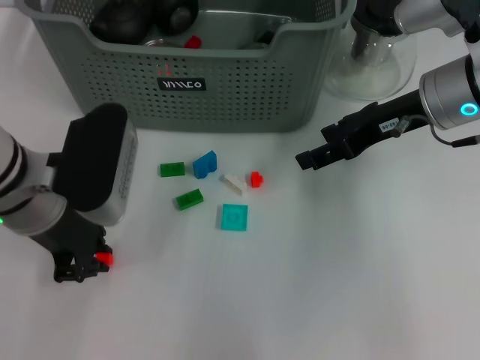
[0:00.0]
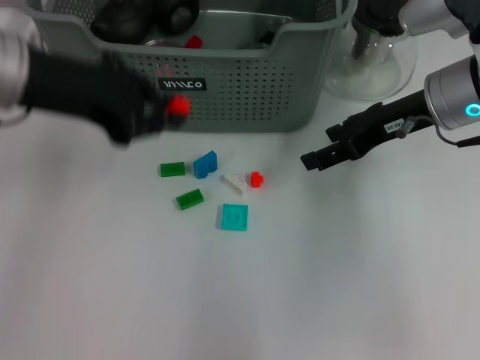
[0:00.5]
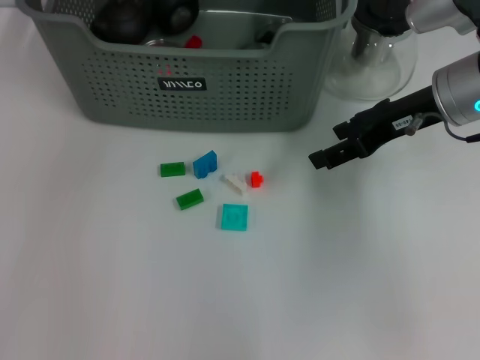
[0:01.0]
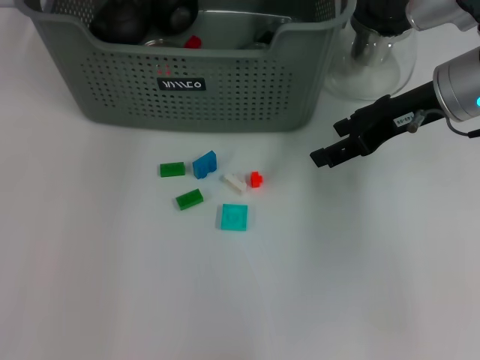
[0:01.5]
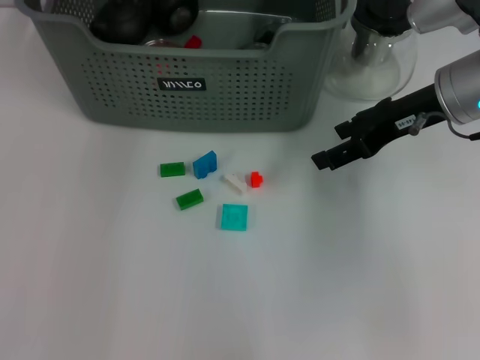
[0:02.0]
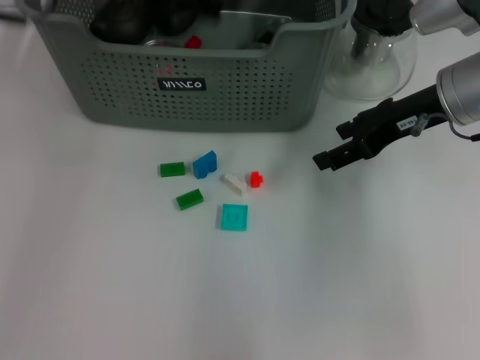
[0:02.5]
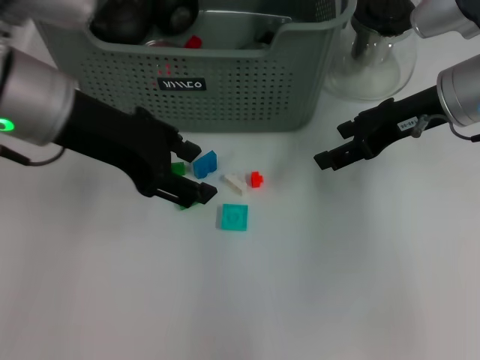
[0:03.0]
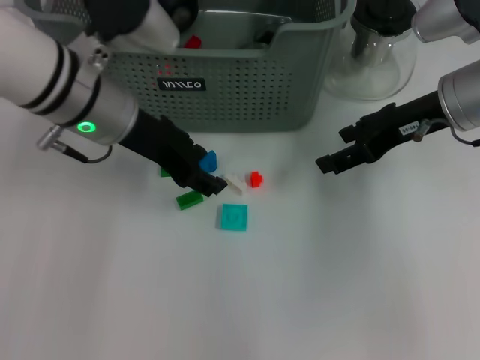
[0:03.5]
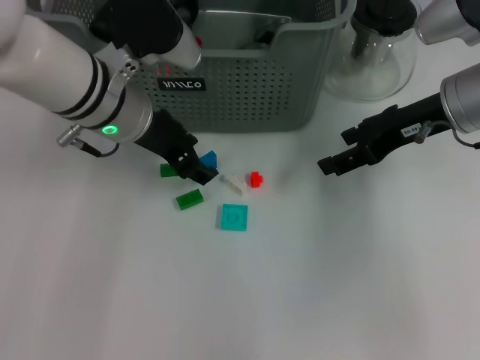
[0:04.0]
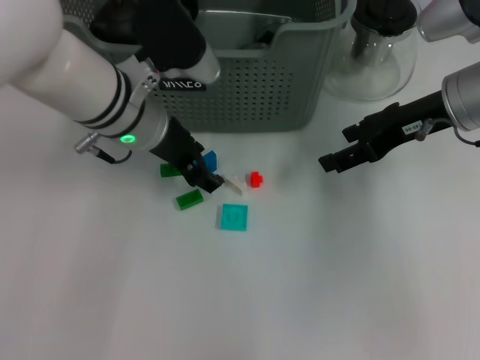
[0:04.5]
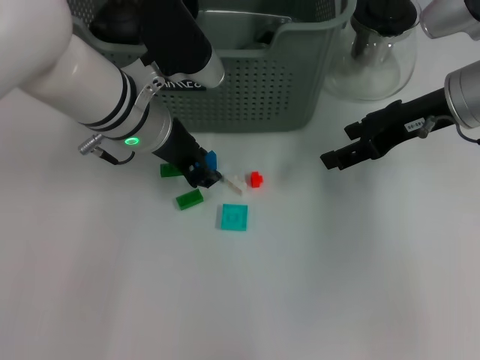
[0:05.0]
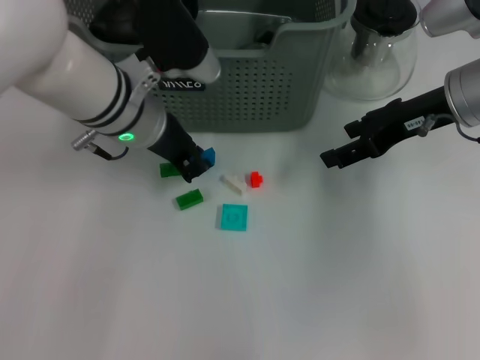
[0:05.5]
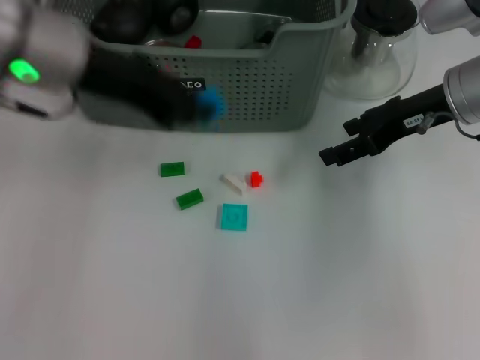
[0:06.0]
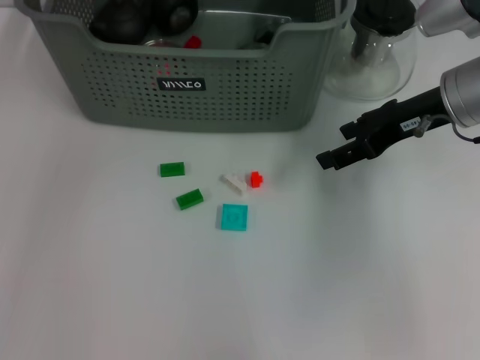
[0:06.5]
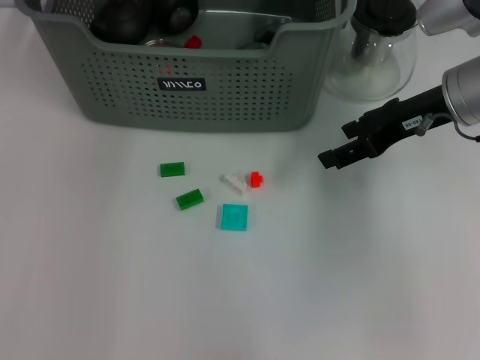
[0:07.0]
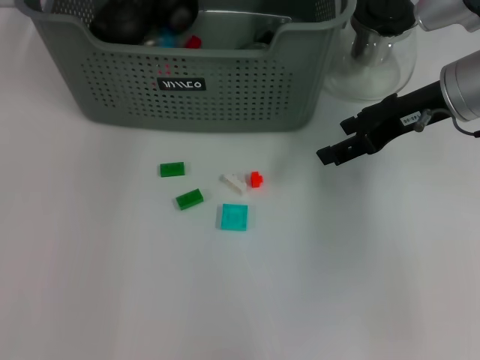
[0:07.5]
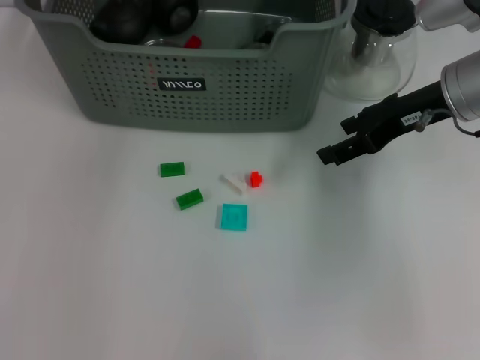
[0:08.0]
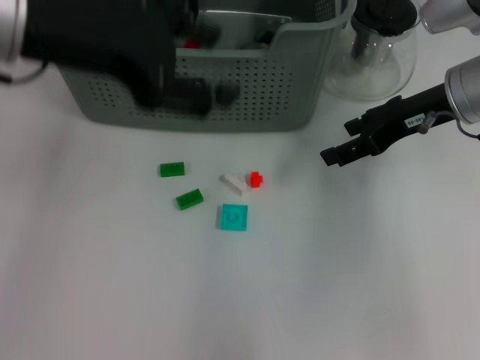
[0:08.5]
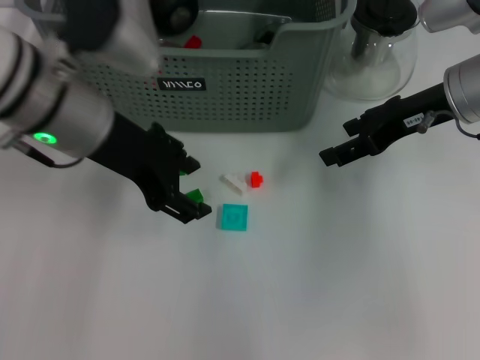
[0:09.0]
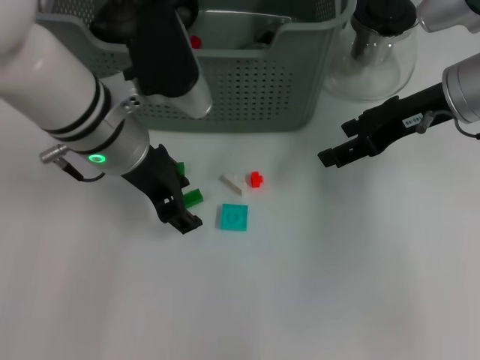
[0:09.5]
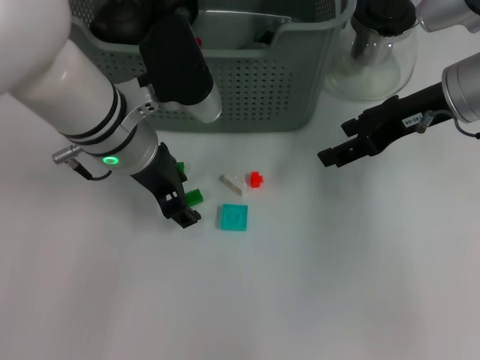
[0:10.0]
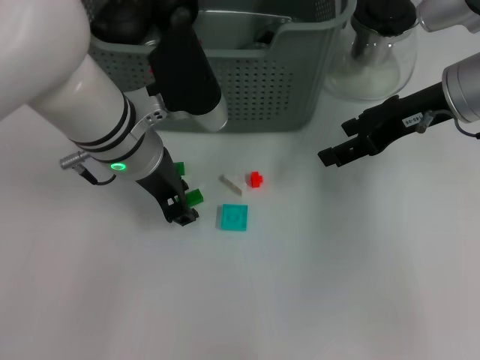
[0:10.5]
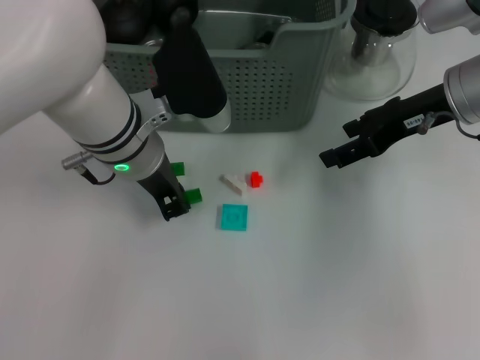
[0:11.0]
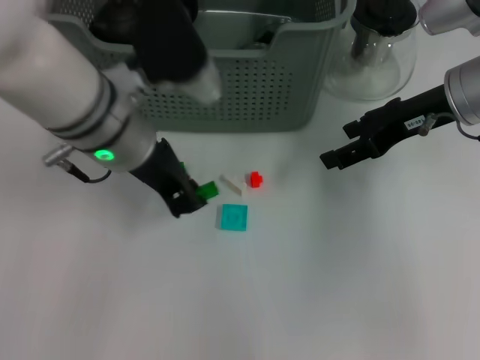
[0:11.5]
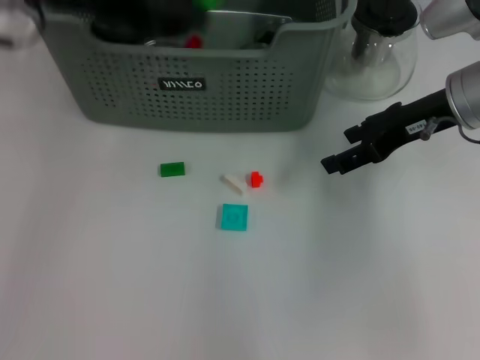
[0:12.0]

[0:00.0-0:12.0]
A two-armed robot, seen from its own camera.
Task of the whole recording: pick up the teacup on the table and place it into the storage bin, pick up the block on the table and place it into the storage bin.
Step, 0:00.0 to 0:01.5: Place the orange block in the storage box with left gripper.
Step, 0:02.0 to 0:05.0: Grasp the dark blue block with left gripper.
Step, 0:05.5 to 0:07.5: Place the dark blue block in the storage box with left gripper.
Step, 0:08.0 to 0:11.0: Grasp the green block with left gripper.
0:00.0 to 0:02.0: The left gripper goes roughly 20 cm forward and upward, and opens its fingers.
0:02.0 to 0:04.0: The left gripper goes some 15 cm downward and backward.
0:04.0 to 0:06.0: The left gripper goes approximately 10 cm upward, and closes up.
0:06.0 to 0:08.0: The left gripper moves forward and upward, approximately 10 cm, and opens up.
0:08.0 to 0:10.0: The left gripper travels downward, backward and to the right by approximately 20 cm.
0:10.0 to 0:12.0: The left gripper heads upward and to the left, covering roughly 15 cm, and closes.

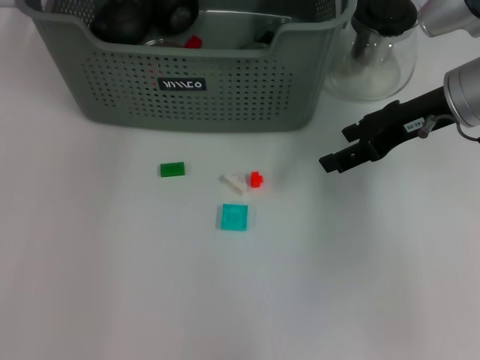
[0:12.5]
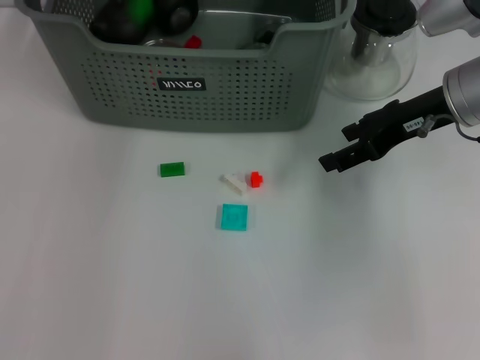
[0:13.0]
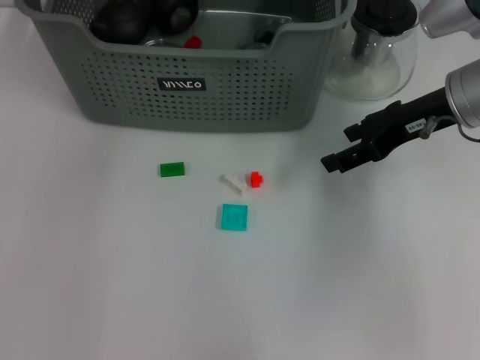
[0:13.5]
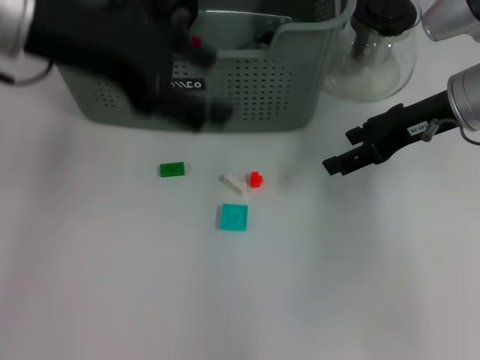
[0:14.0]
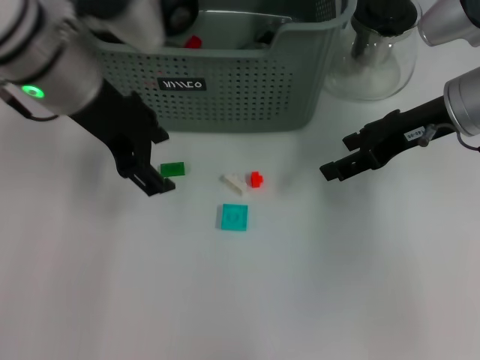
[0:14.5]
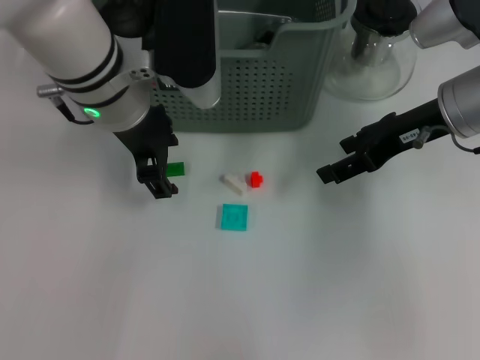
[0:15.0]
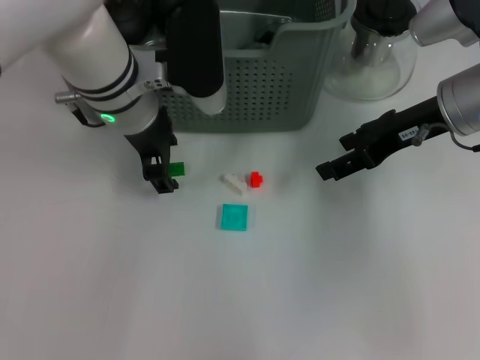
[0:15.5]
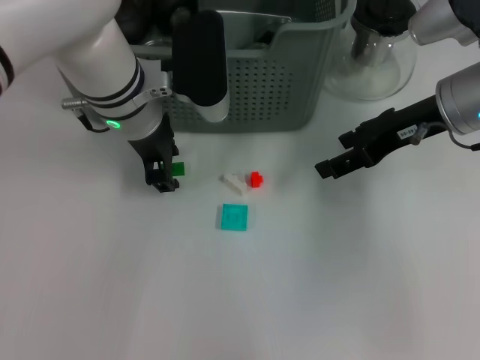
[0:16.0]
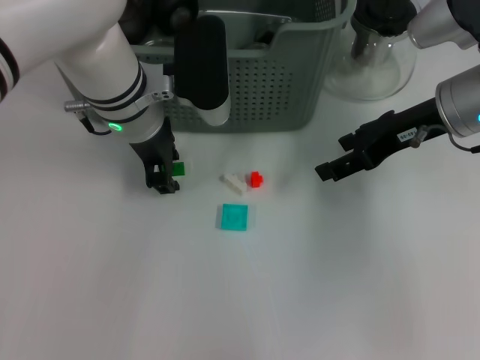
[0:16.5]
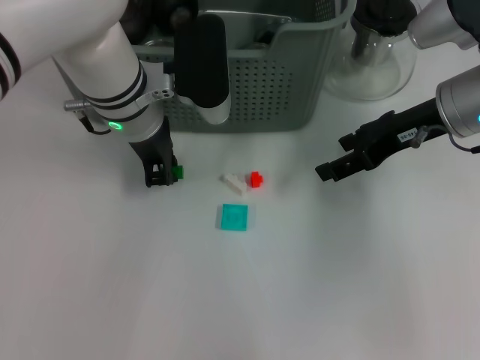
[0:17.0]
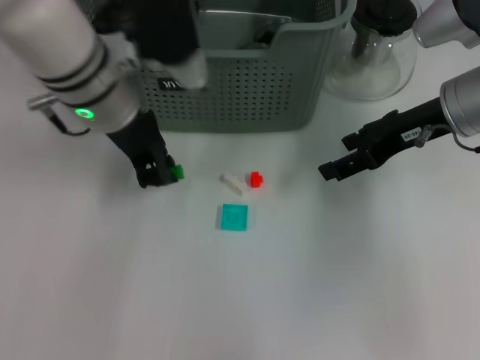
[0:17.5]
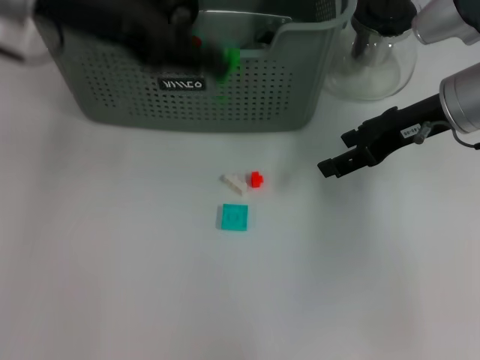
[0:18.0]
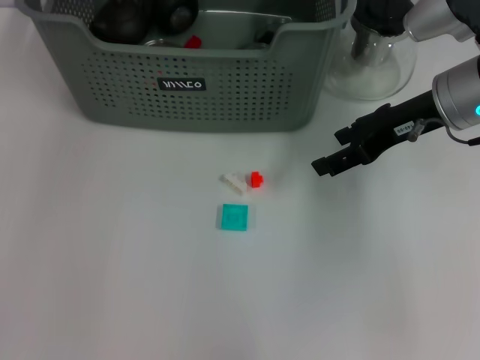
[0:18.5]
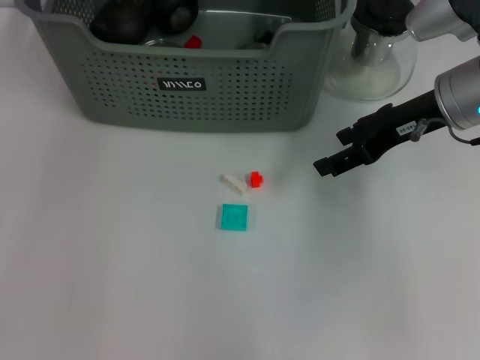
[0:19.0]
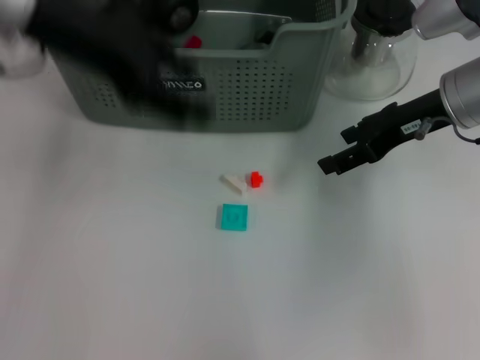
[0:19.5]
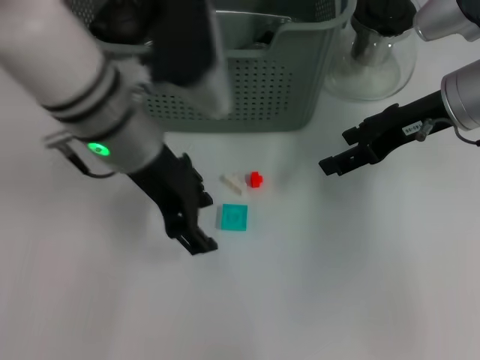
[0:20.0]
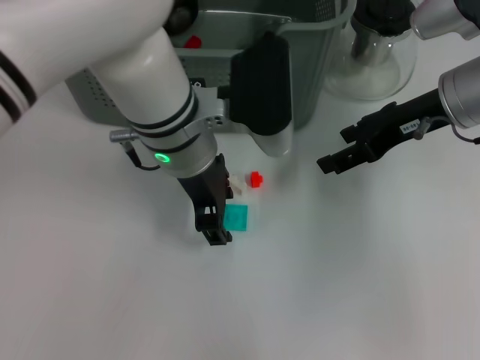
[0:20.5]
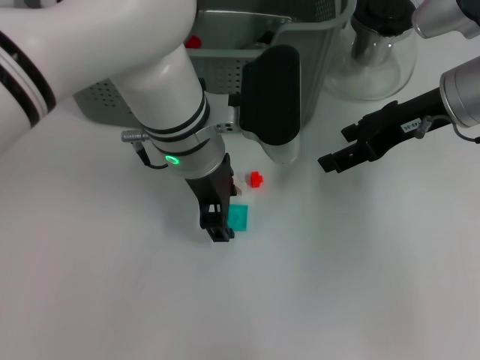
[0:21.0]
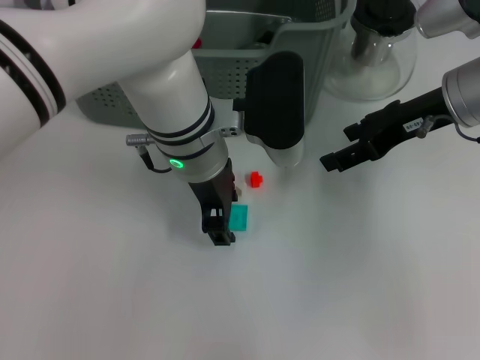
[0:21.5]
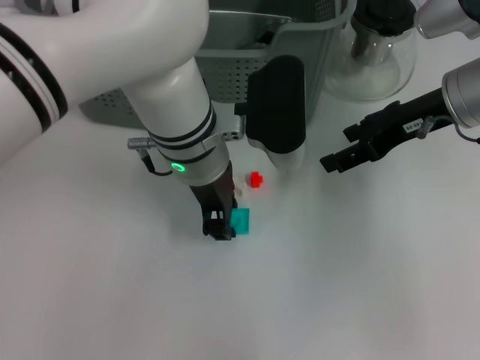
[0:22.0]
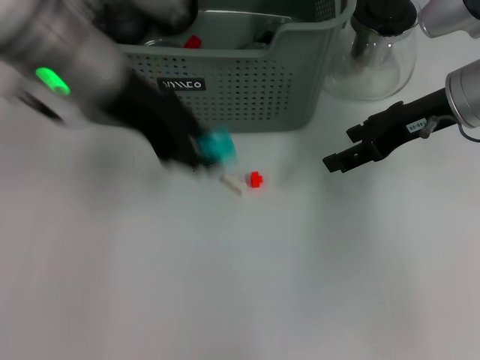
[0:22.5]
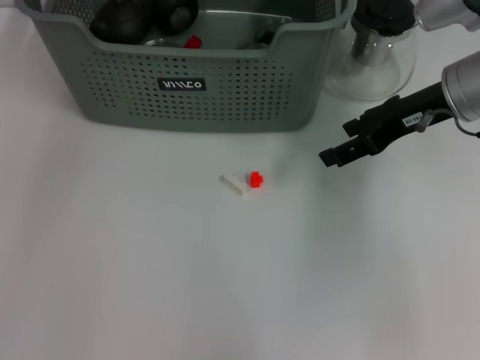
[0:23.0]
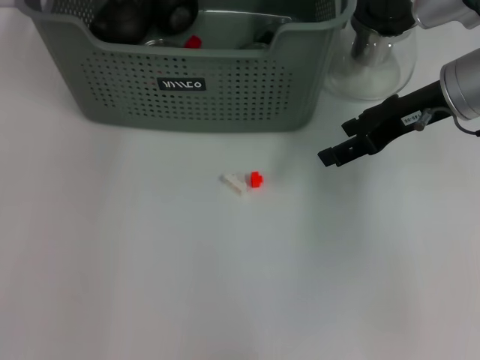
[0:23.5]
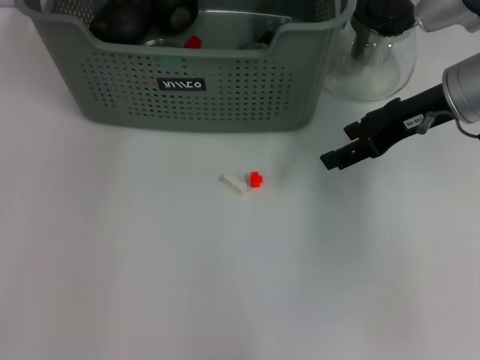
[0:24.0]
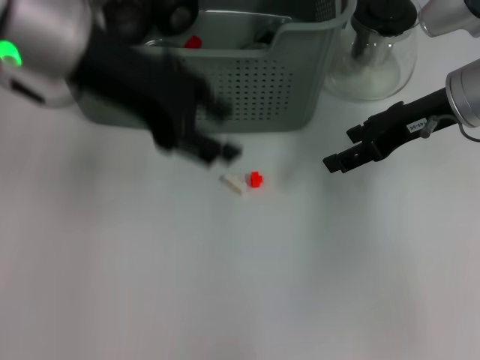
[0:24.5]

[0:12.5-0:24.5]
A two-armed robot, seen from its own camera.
Task of the whole recording: pick up the teacup on the table and place it into the storage bin, pick up the block on the table and place it into the storage bin.
Step, 0:13.5 to 0:16.5: Grasp the green block with left gripper.
Step, 0:17.5 to 0:18.5: Place the green block in the storage box with left gripper.
Step, 0:19.0 to 0:21.5: Grasp the light blue block with left gripper.
Step, 0:22.5 to 0:24.0: Place the light blue block in the storage box with left gripper.
0:12.5 to 0:14.5: The left gripper heads backward and downward, covering some 10 cm, and opens up.
0:14.5 to 0:16.5: The left gripper goes about 10 cm downward.
0:16.5 to 0:18.5: The left gripper shifts roughly 20 cm upward, to the left and forward, and closes up.
0:18.5 to 0:20.5: The left gripper travels to the right, downward and backward by some 25 cm, and opens.
0:20.5 to 0:22.5: The left gripper moves to the left and upward, about 10 cm.
0:22.5 to 0:24.5: The left gripper goes forward and returns, approximately 10 cm each way.

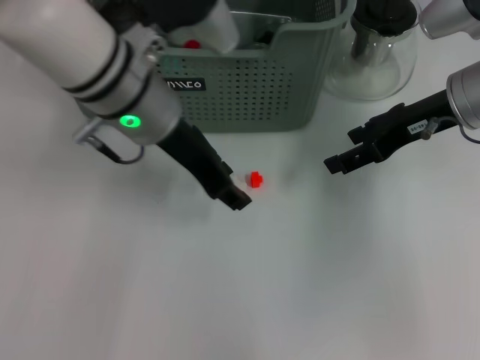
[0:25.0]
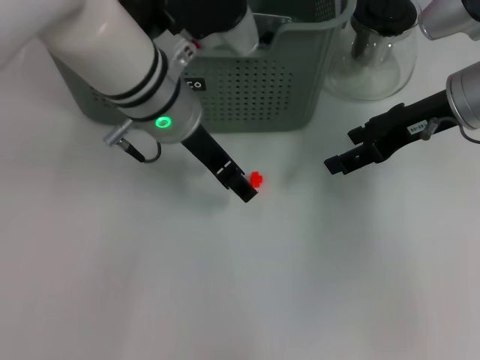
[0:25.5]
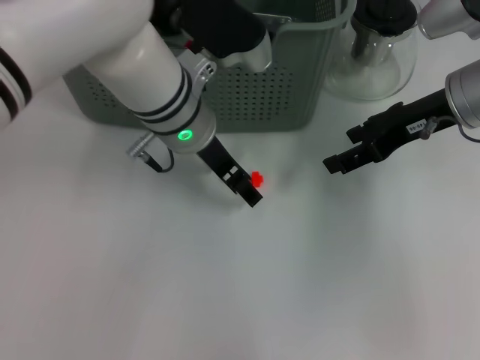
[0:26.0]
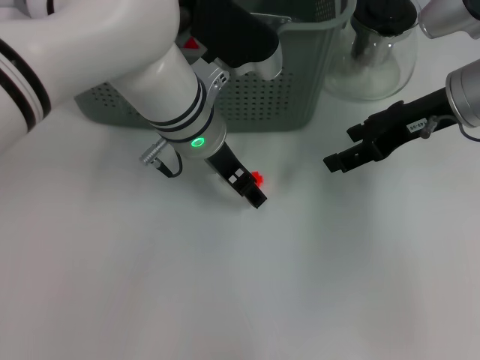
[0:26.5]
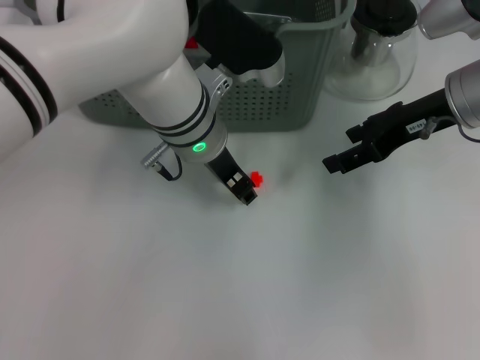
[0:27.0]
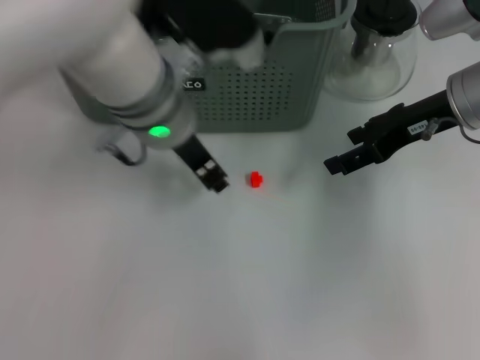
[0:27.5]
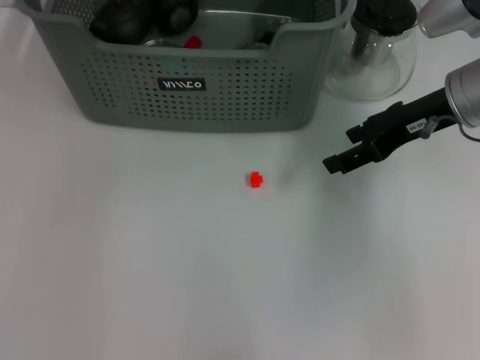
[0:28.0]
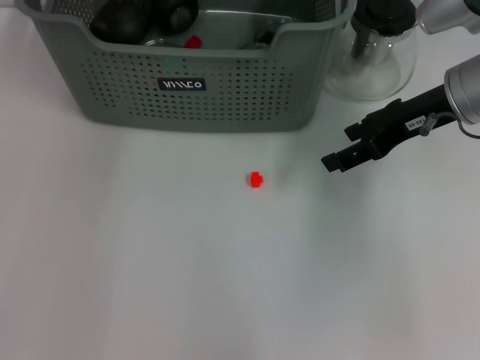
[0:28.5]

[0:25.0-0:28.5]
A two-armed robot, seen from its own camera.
Task of the whole recording: pick up the teacup on the table and place it into the storage bin, pick up the block on the table and place it into the storage bin.
Step, 0:25.0 to 0:27.0: Grasp the white block with left gripper.
0:25.0 to 0:27.0: The left gripper is displaced downward and to the right by some 5 cm.
0:27.0 to 0:28.5: The left gripper heads upward, to the left and forward, covering approximately 25 cm.
